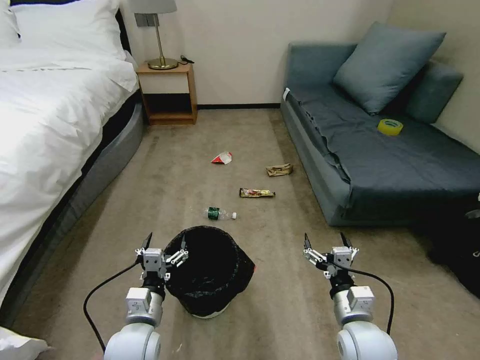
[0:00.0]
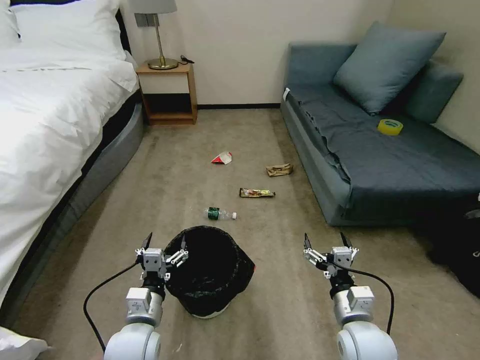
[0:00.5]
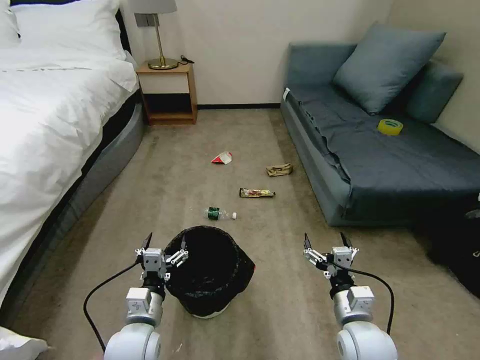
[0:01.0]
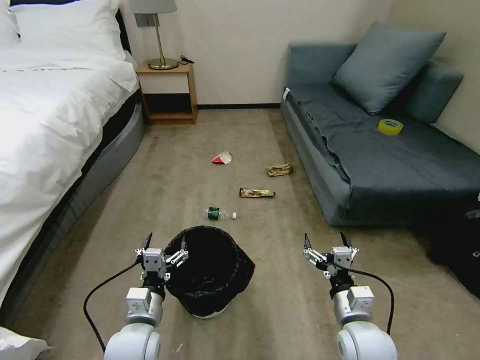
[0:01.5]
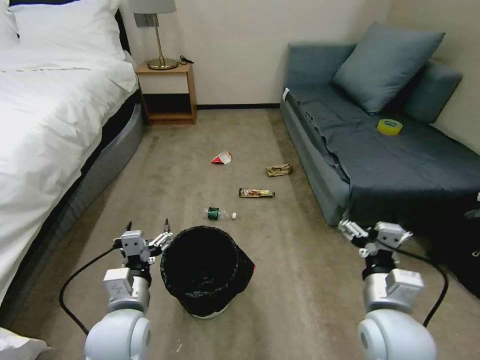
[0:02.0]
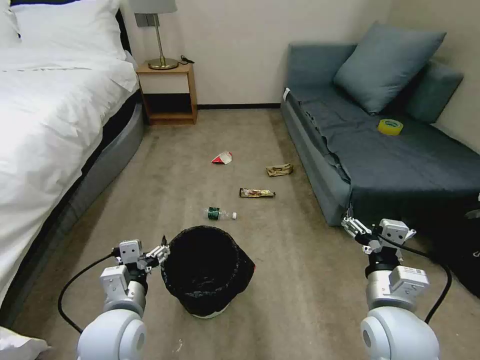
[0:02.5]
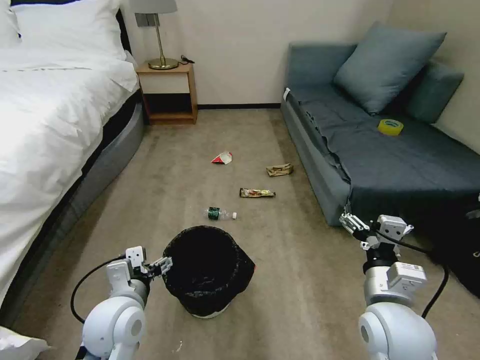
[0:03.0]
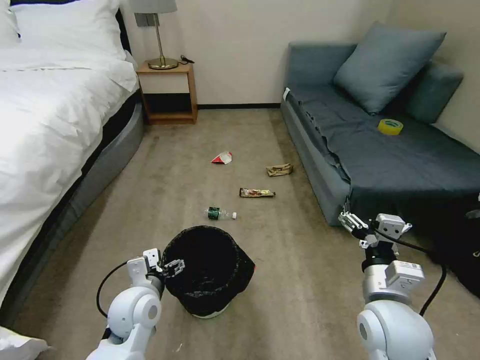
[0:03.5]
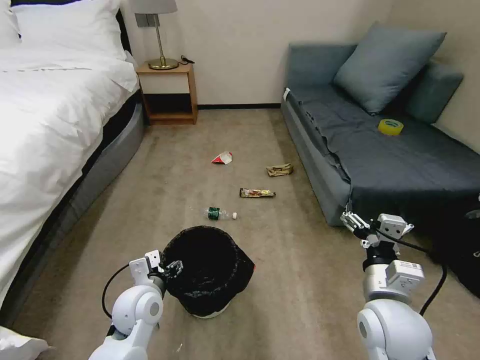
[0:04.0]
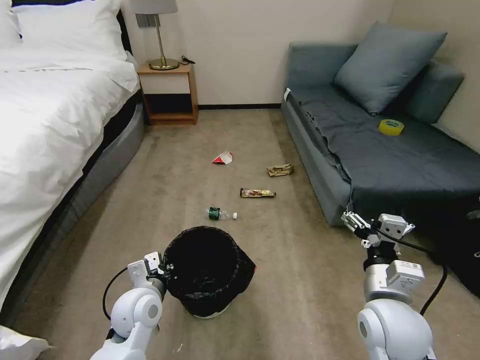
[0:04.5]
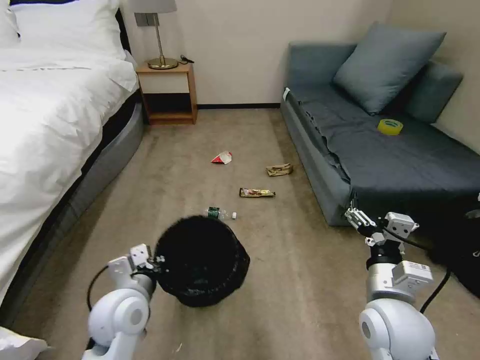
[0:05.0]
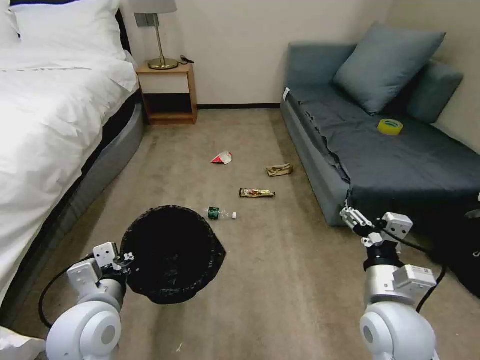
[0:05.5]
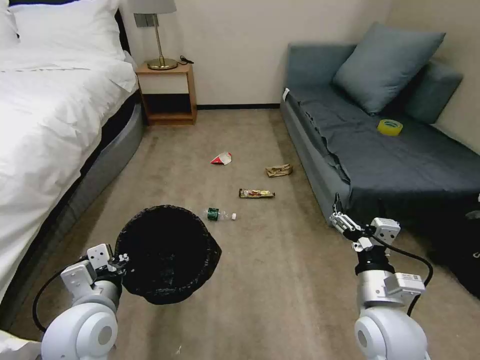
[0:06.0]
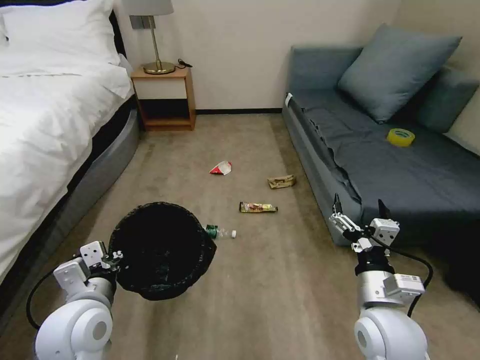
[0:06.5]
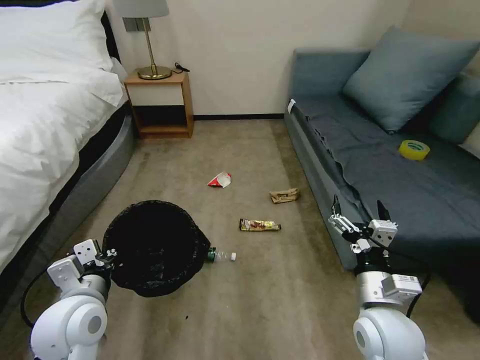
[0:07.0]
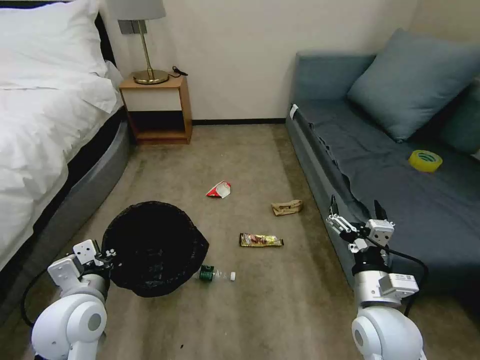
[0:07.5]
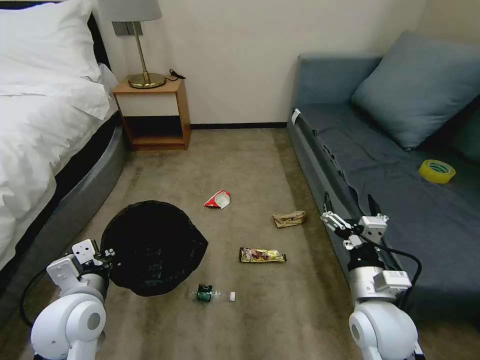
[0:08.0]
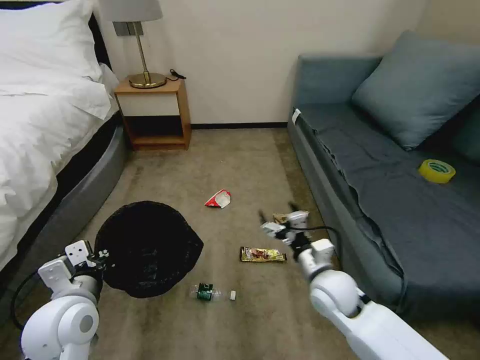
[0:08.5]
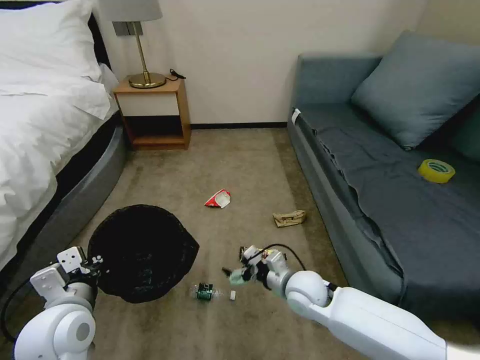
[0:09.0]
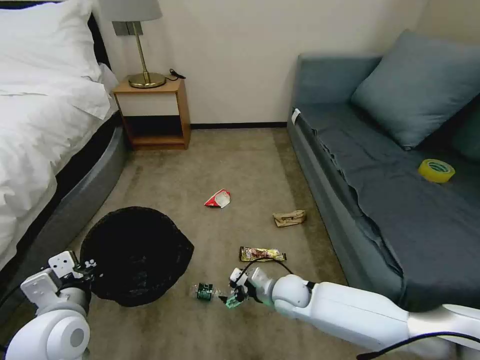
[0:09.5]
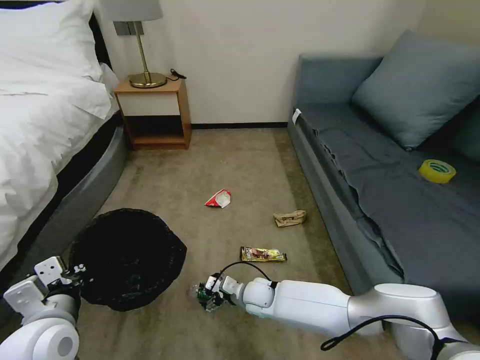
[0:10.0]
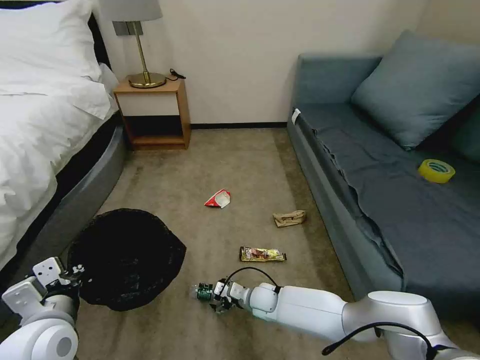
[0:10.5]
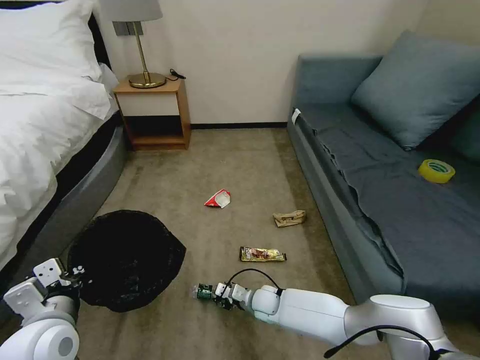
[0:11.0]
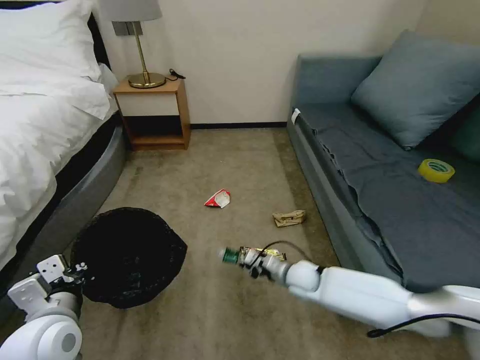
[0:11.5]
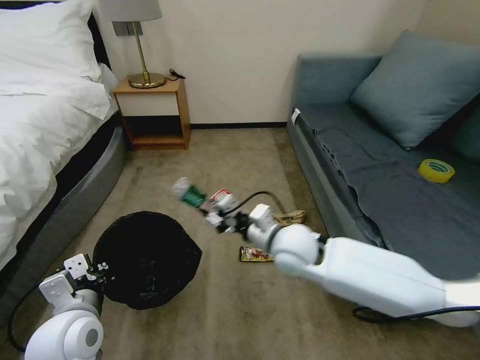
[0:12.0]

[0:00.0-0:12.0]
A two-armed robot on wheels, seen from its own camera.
Task of the whole recording: Pick up the trash bin, then pick up the garbage on the floor and place it into the trash bin.
0:02.0 to 0:04.0: The left gripper is displaced forward by approximately 5 cm.
0:04.0 to 0:06.0: The left gripper moves upward and backward, about 10 cm, and closes.
0:08.0 to 0:10.0: The right gripper shifts roughly 30 cm downward, to the left and forward.
0:10.0 to 0:12.0: The right gripper is displaced upward by roughly 25 cm, and closes up.

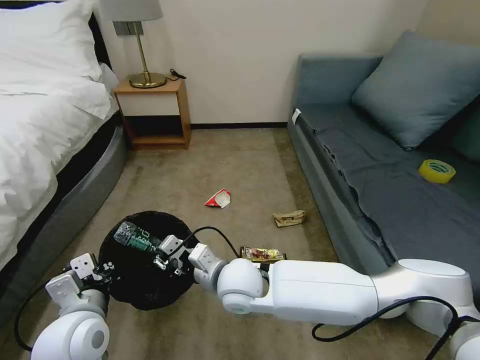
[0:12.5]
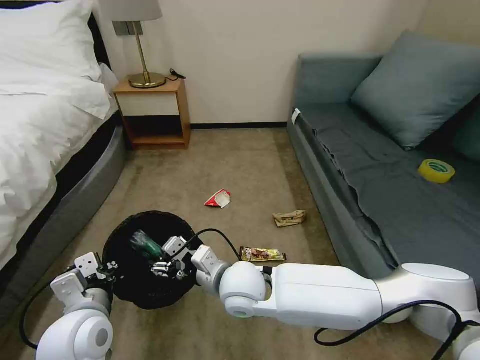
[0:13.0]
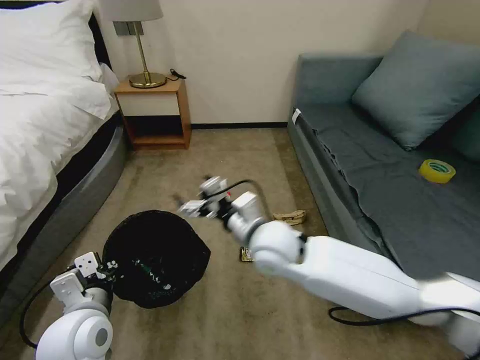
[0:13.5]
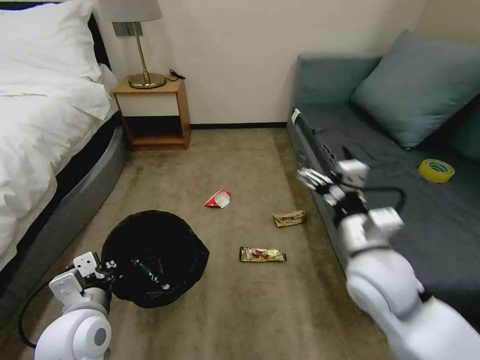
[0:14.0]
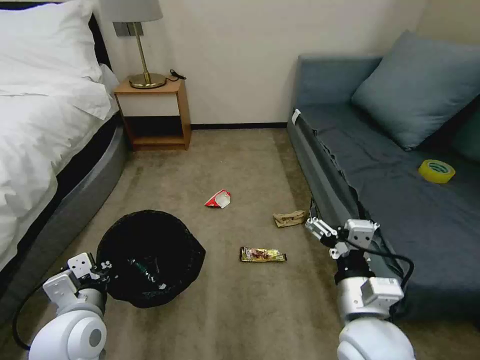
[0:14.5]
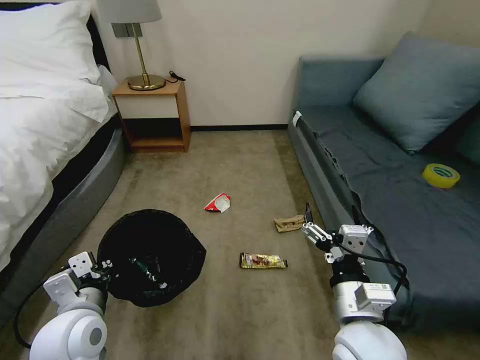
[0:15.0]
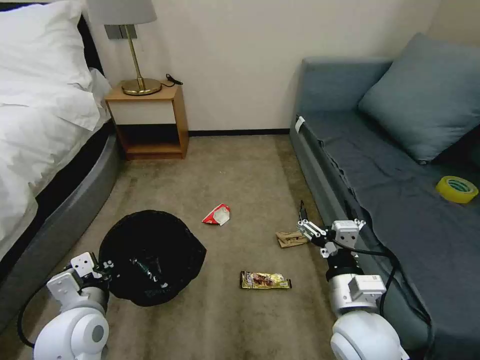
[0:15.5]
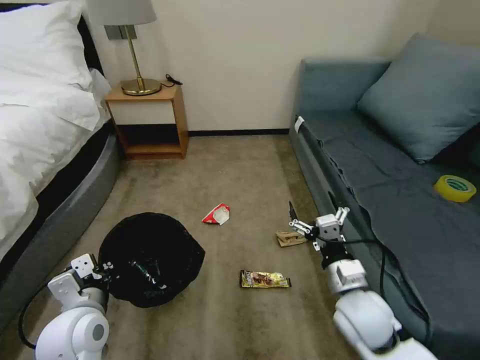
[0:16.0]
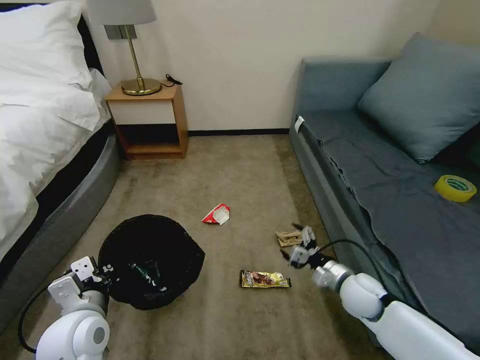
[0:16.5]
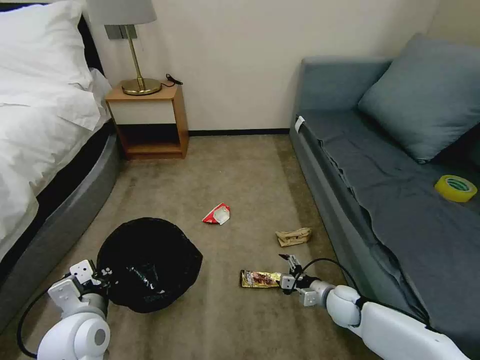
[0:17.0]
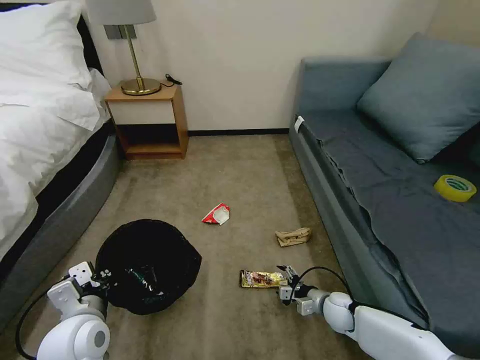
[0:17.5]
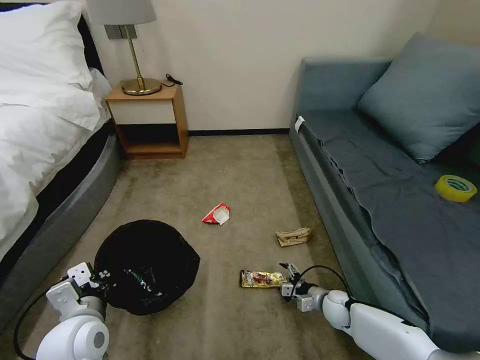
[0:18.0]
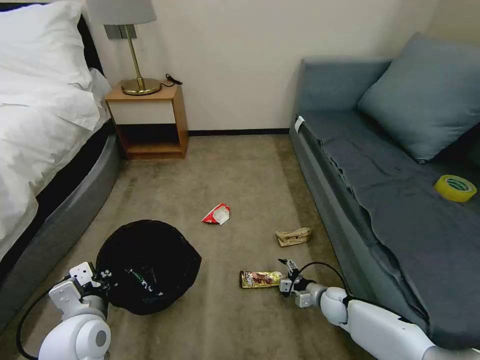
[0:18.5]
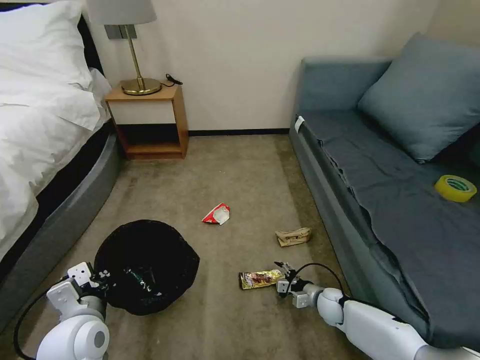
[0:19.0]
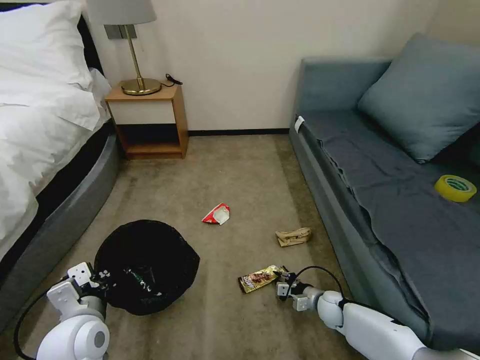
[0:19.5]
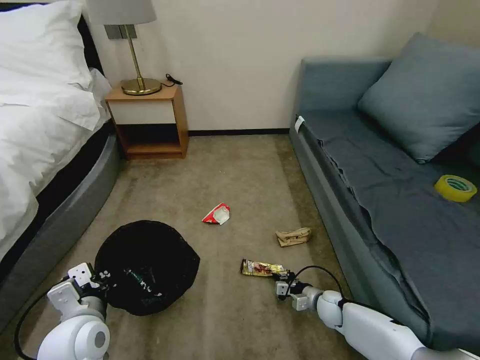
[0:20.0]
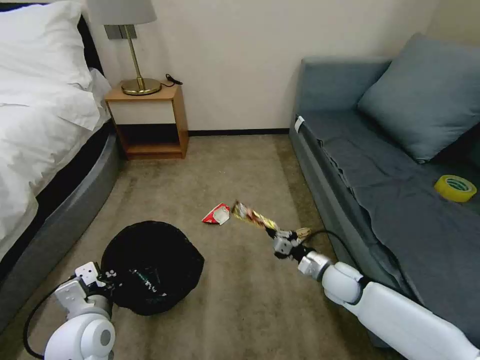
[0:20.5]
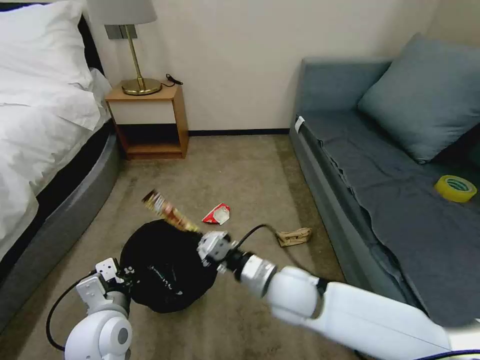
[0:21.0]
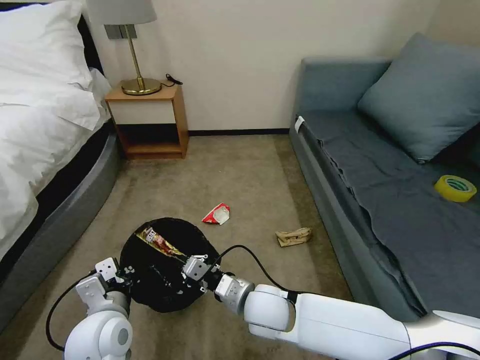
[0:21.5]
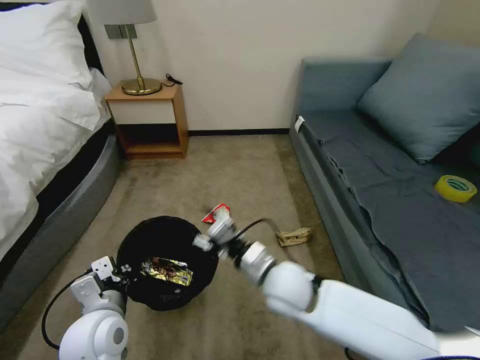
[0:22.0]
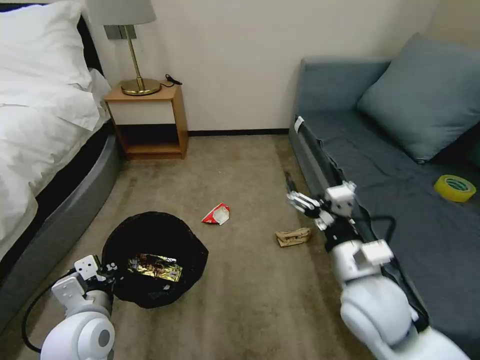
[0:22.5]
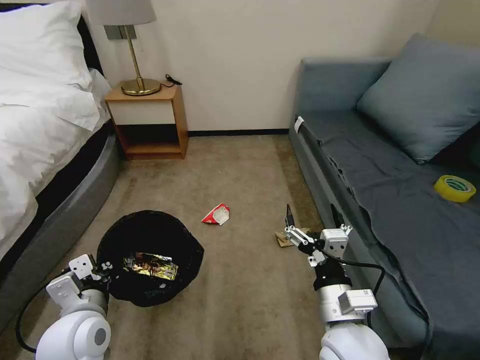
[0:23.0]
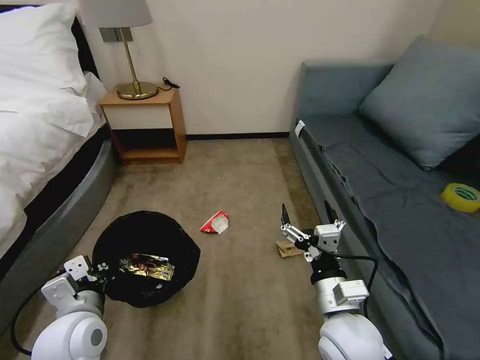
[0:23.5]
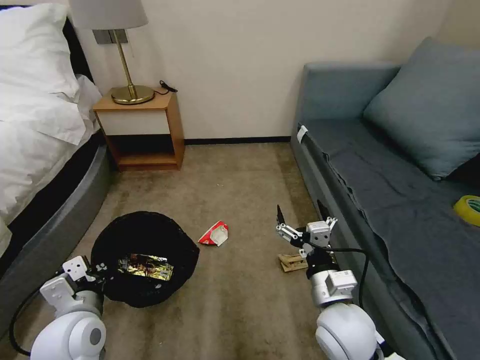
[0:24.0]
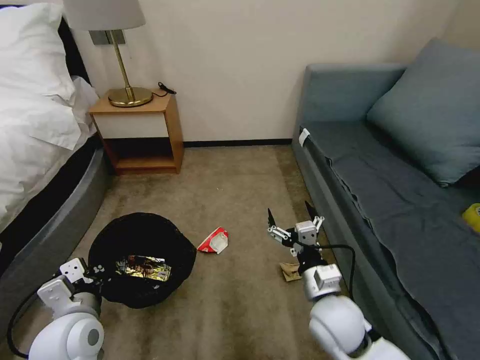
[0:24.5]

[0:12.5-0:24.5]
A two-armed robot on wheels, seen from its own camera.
Task of the whole recording: Pick up the trash bin, then pick up the garbage on the floor and place it into the trash bin.
0:12.5 to 0:14.5: The right gripper is displaced to the right and backward by approximately 25 cm, and opens up.
0:14.5 to 0:16.5: The right gripper moves downward, forward and to the right, approximately 25 cm.
0:16.5 to 0:18.5: The right gripper moves downward, approximately 15 cm.
0:18.5 to 0:20.5: The right gripper heads upward, covering some 15 cm, and closes.
0:20.5 to 0:22.5: The right gripper travels upward and backward by roughly 20 cm, reaches about 20 cm to the left, then returns, and opens its fingers.
0:22.5 to 0:24.5: The right gripper shifts approximately 10 cm downward.

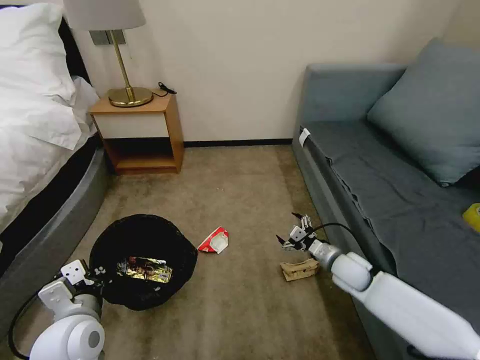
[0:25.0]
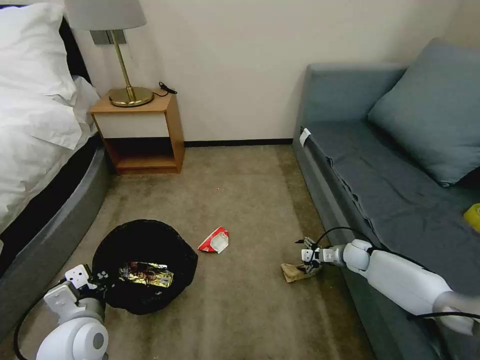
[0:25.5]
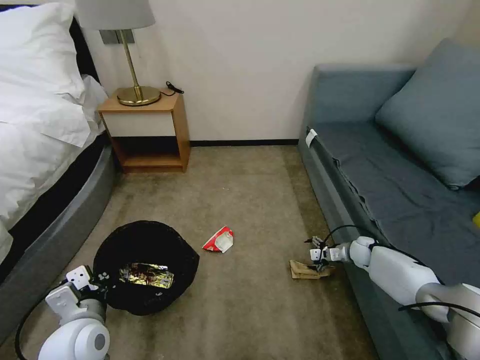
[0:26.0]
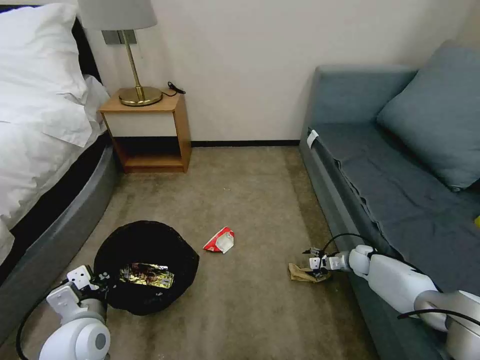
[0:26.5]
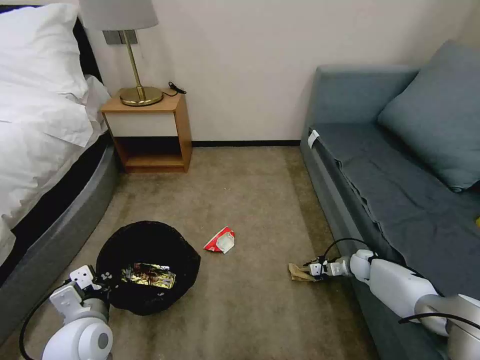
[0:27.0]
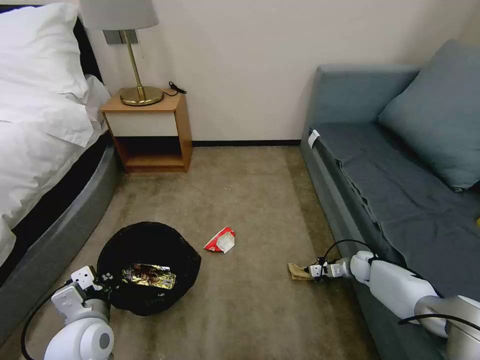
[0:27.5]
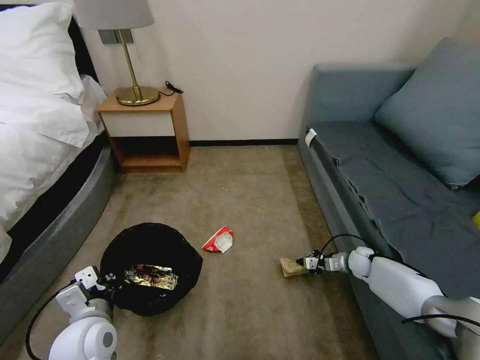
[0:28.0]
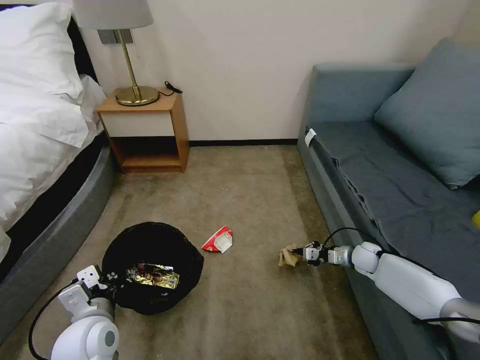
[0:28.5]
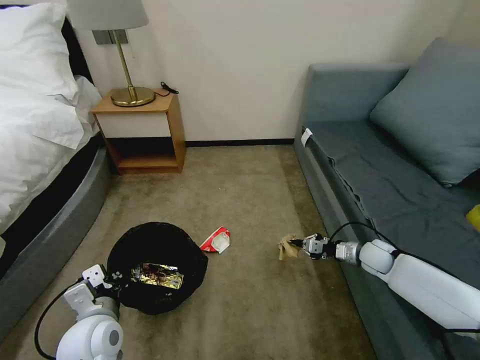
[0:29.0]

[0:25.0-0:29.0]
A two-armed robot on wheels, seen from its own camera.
Task of the whole recording: Pick up the trash bin, then pick up the garbage on the floor and place it into the trash bin.
0:25.0 to 0:27.0: The right gripper moves to the right, downward and forward, approximately 20 cm, and closes its fingers.
0:27.0 to 0:29.0: The right gripper heads upward, covering approximately 10 cm.
